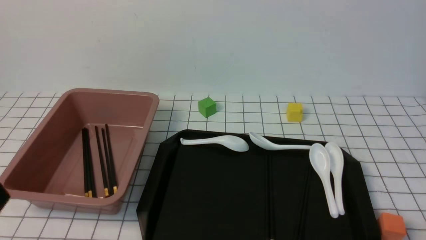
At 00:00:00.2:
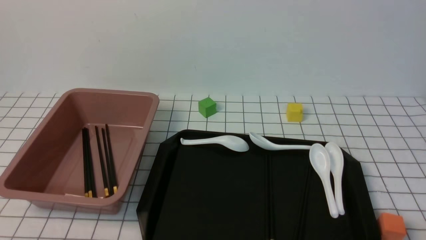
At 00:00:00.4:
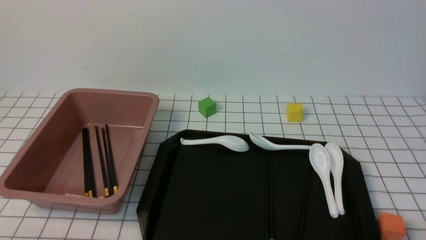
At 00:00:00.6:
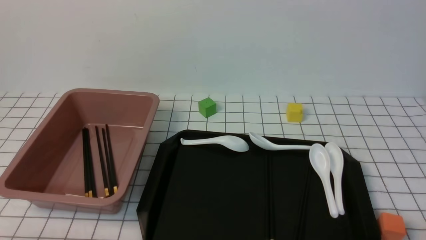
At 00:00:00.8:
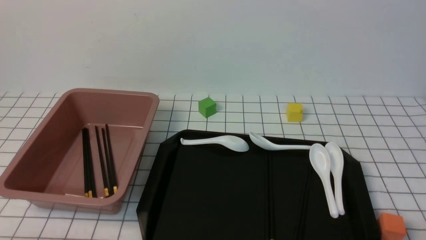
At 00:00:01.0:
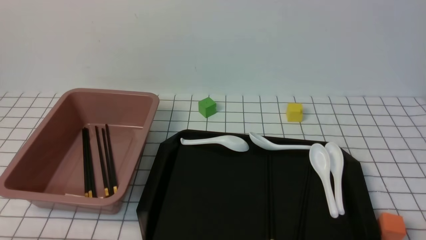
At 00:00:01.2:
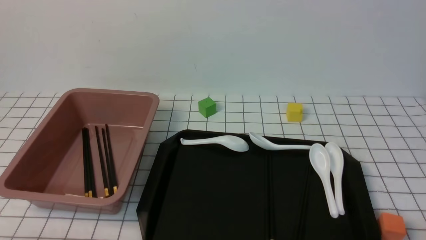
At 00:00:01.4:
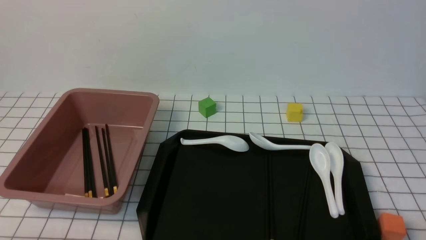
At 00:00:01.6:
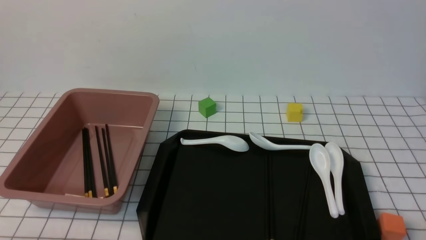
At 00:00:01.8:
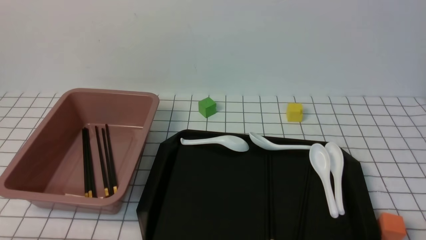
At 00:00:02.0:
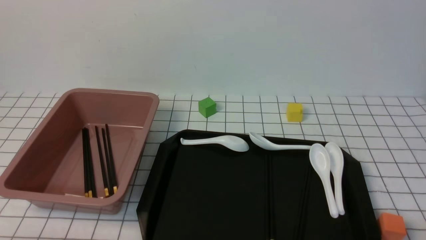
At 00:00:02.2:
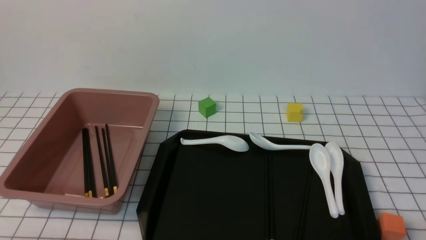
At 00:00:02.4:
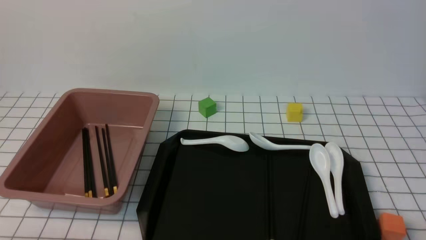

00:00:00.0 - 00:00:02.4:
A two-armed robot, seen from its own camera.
00:00:01.2 - 00:00:02.4: The two grippers keep their place.
